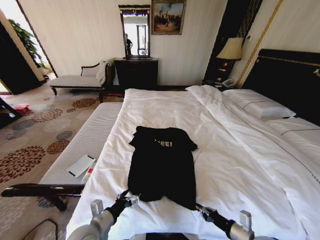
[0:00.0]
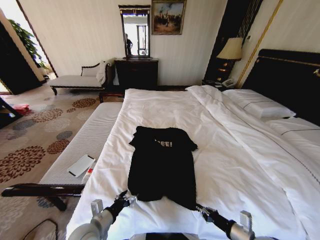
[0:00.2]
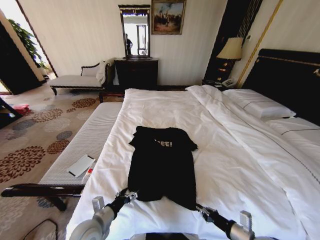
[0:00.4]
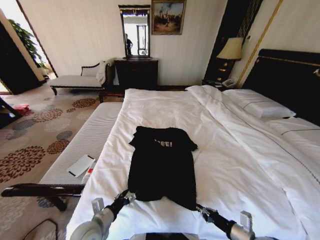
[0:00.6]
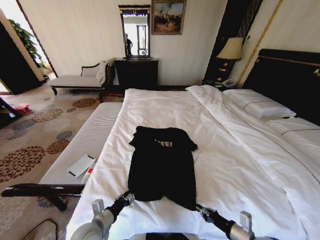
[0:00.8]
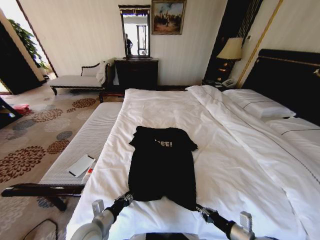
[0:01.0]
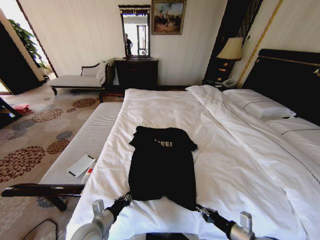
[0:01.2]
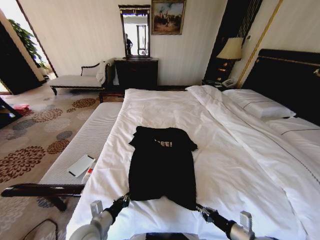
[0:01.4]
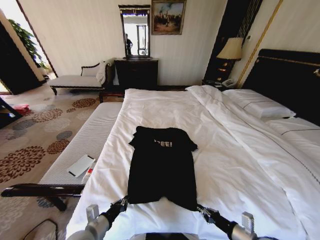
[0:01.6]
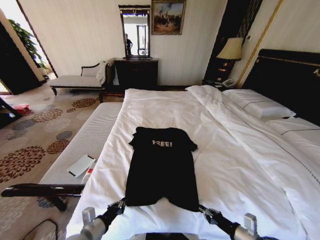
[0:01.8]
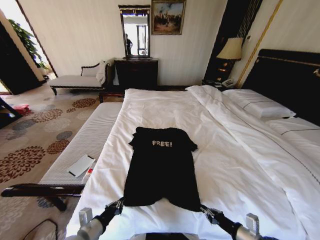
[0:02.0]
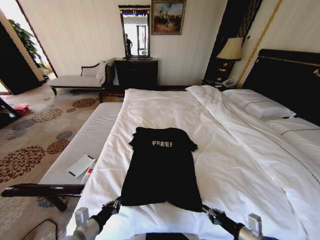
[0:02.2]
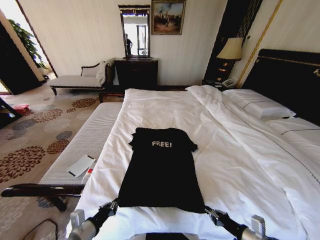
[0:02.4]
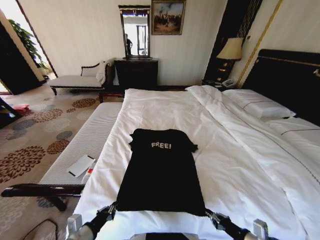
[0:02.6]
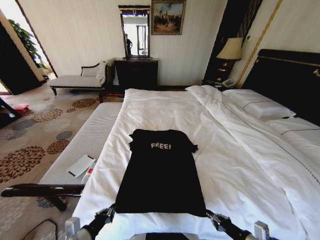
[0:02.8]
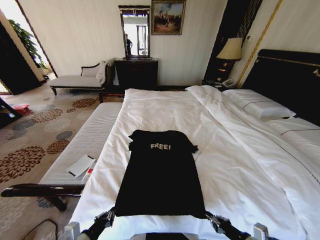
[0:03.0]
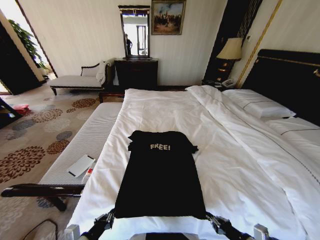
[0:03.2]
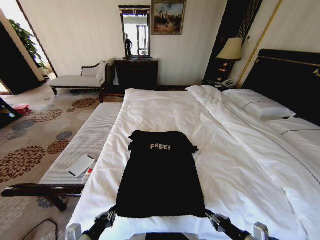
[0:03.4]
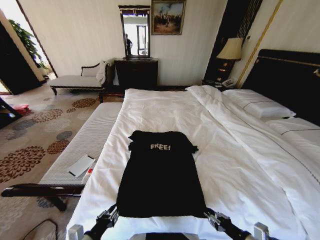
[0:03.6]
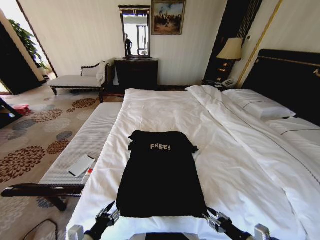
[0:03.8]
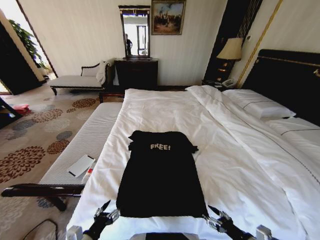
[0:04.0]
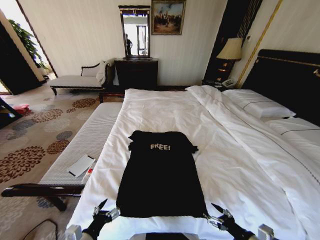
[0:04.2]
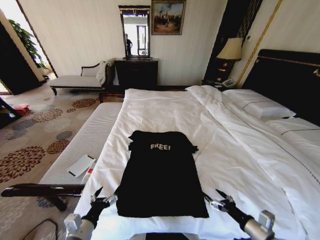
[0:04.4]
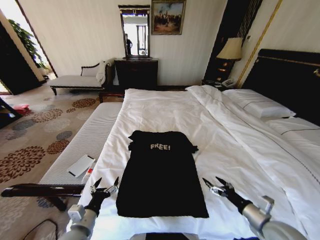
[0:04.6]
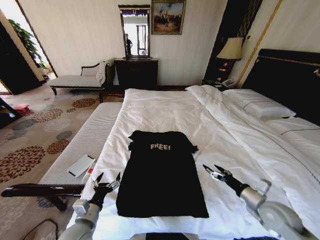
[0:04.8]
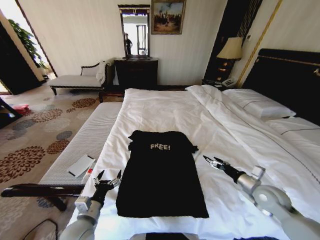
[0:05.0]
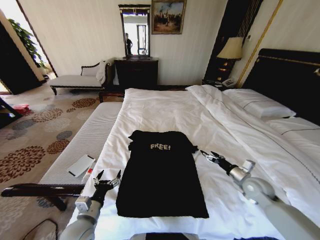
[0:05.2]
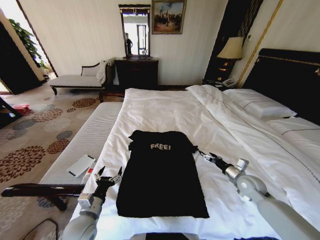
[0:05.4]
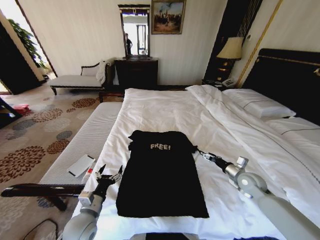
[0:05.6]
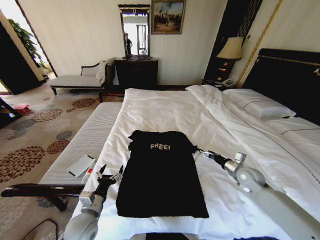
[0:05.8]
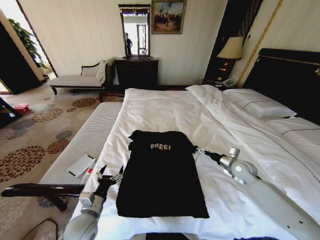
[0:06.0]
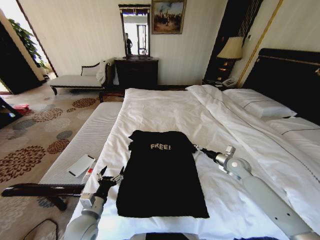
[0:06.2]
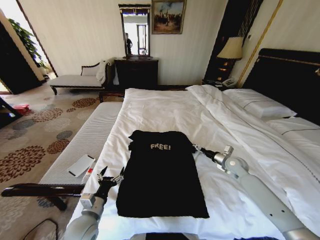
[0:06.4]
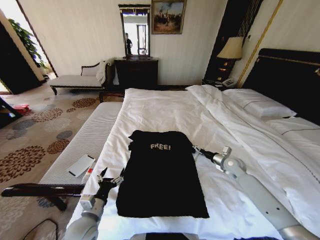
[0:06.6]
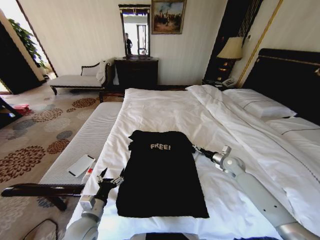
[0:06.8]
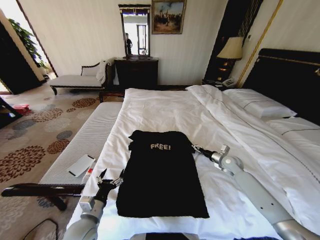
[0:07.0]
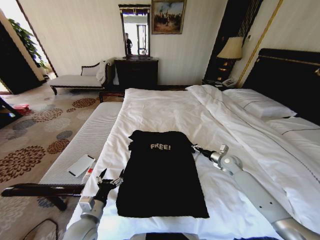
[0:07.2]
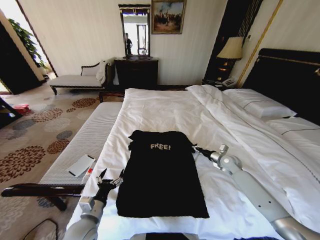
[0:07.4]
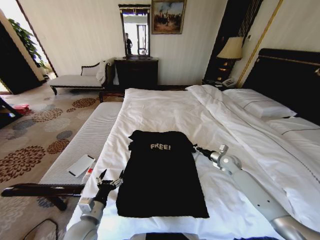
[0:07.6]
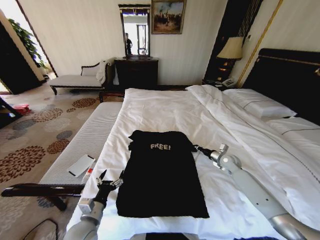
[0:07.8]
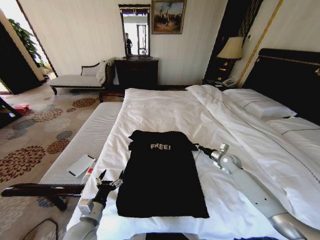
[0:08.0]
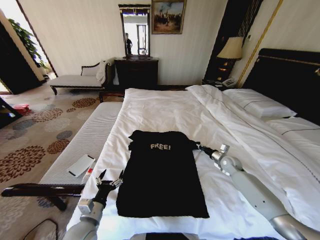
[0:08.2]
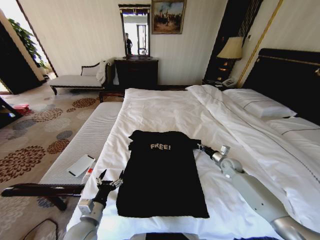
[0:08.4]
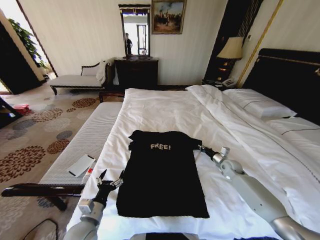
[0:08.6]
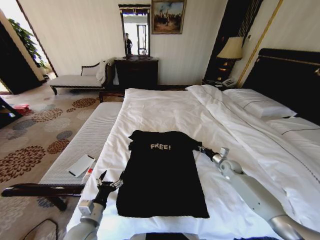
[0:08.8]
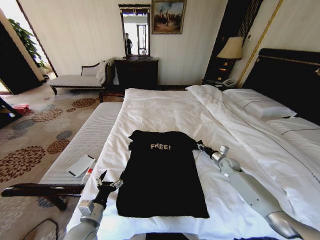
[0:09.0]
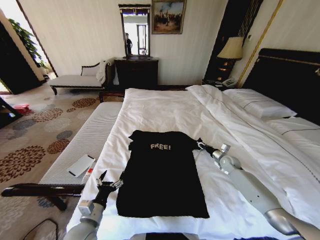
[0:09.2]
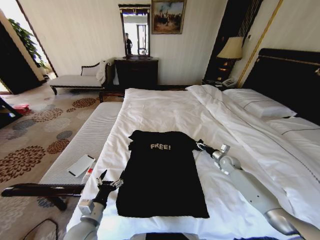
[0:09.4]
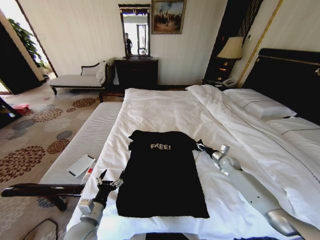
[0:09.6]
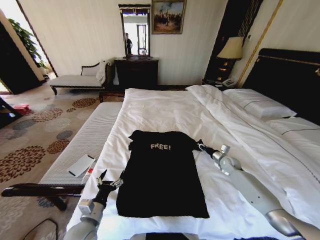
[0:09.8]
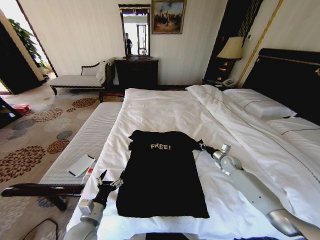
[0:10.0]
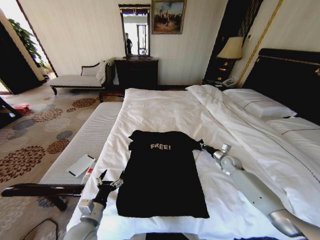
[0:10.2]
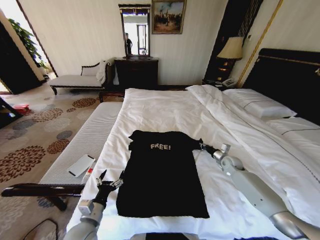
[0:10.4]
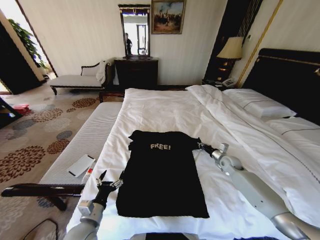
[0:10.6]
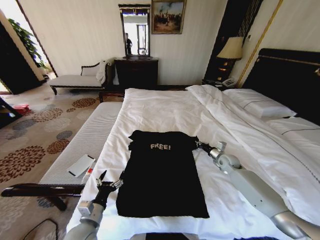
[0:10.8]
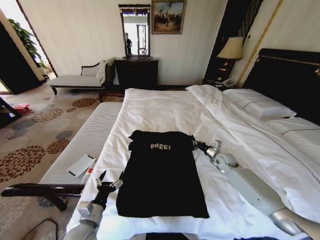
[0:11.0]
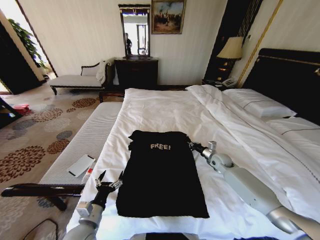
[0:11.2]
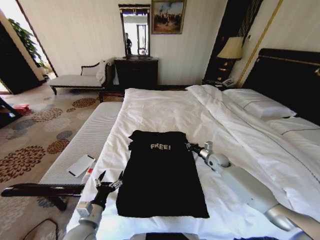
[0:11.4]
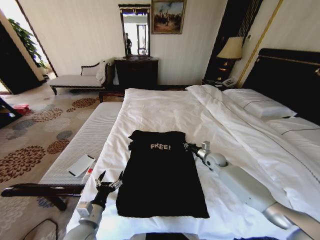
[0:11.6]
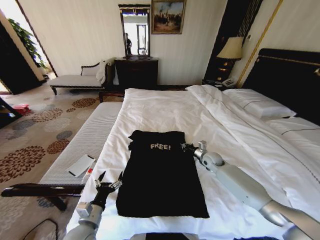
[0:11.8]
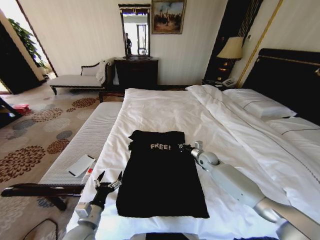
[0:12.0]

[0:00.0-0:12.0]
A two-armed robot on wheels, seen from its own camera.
Task of the whole recording: Fold the clothes on the bed.
0:00.0 to 0:01.6: The left gripper closes up.
0:01.6 to 0:03.0: The left gripper goes about 5 cm backward.
0:03.0 to 0:04.4: The left gripper opens its fingers. Meanwhile the right gripper opens up.
0:04.4 to 0:06.0: The left gripper is displaced forward by about 10 cm. Meanwhile the right gripper moves forward, roughly 30 cm.
0:06.0 to 0:07.6: The right gripper goes about 5 cm forward, and closes up.
0:09.0 to 0:10.4: The right gripper opens, then closes again.
0:10.4 to 0:12.0: The right gripper moves to the left, some 15 cm.

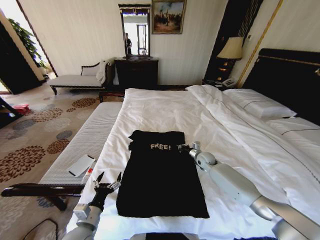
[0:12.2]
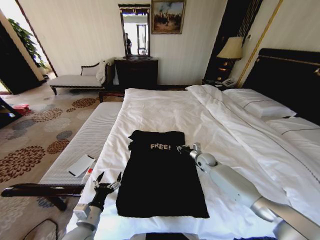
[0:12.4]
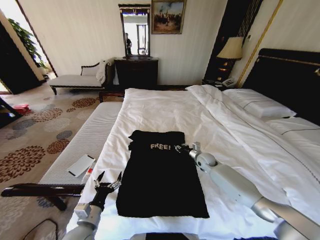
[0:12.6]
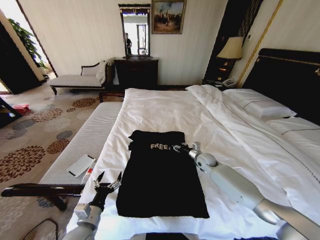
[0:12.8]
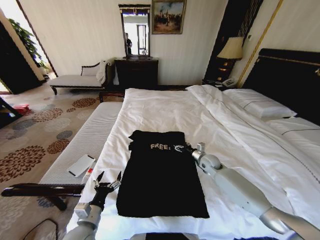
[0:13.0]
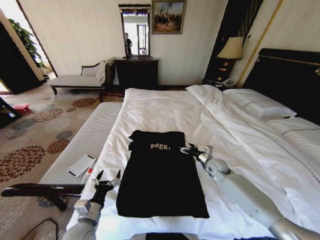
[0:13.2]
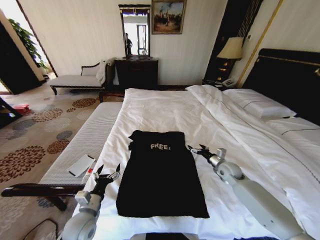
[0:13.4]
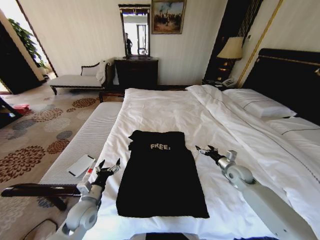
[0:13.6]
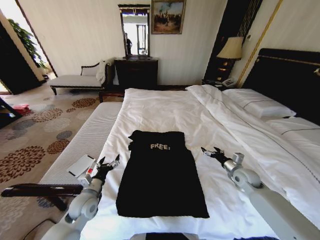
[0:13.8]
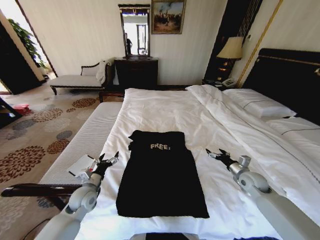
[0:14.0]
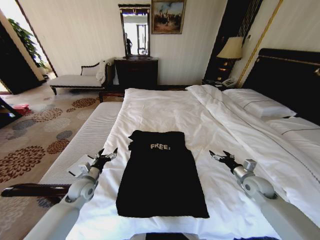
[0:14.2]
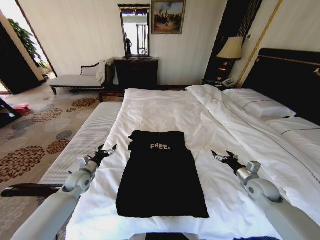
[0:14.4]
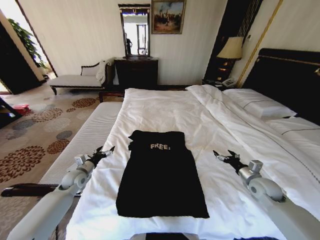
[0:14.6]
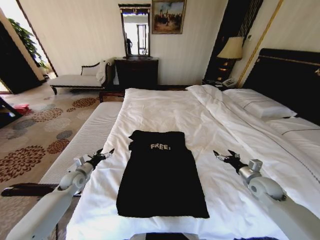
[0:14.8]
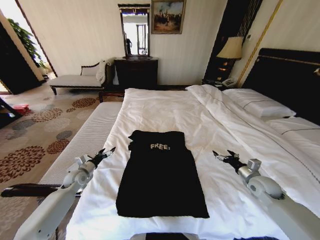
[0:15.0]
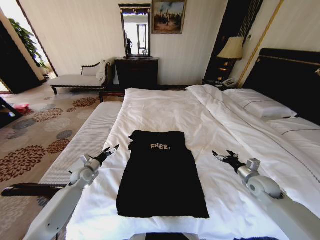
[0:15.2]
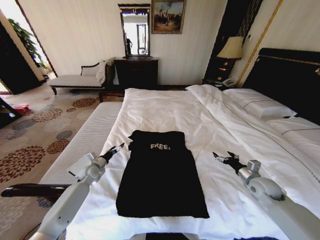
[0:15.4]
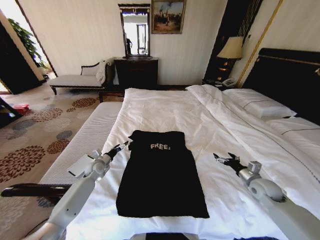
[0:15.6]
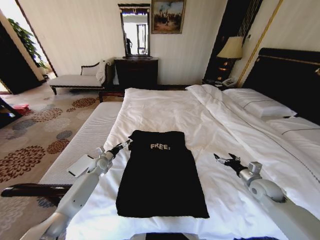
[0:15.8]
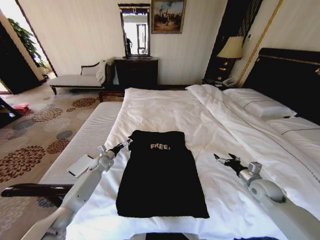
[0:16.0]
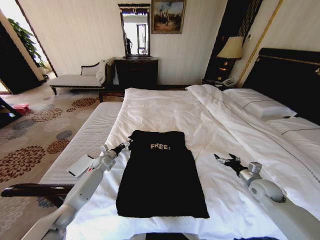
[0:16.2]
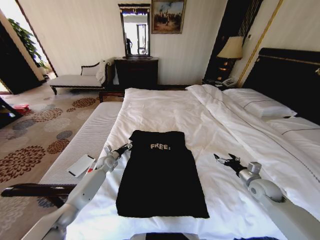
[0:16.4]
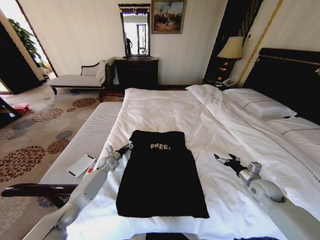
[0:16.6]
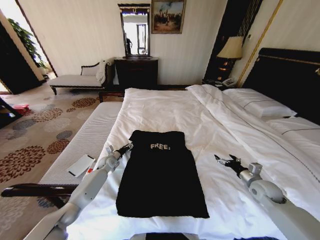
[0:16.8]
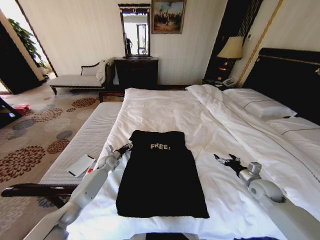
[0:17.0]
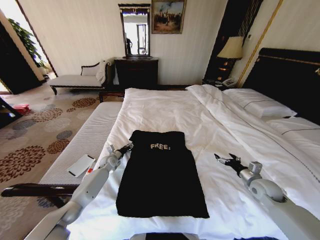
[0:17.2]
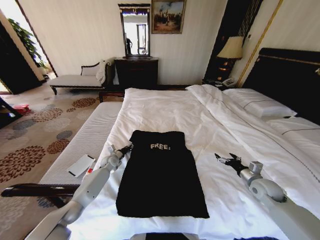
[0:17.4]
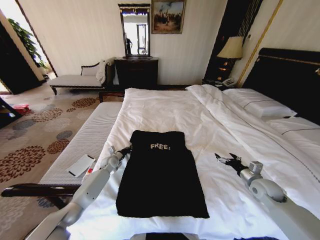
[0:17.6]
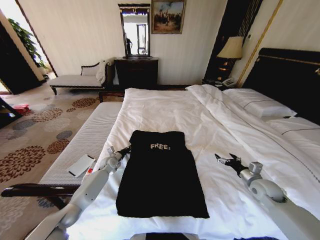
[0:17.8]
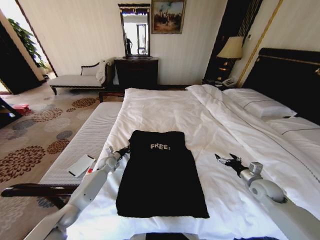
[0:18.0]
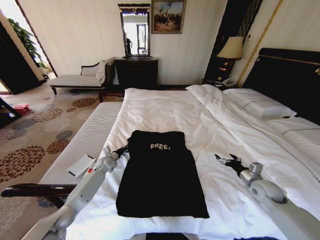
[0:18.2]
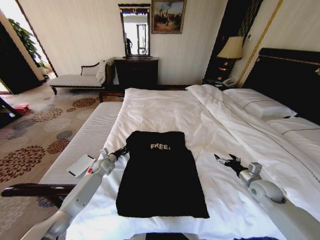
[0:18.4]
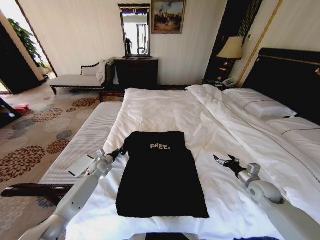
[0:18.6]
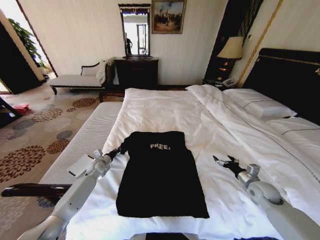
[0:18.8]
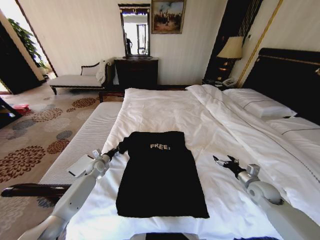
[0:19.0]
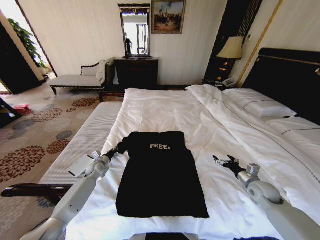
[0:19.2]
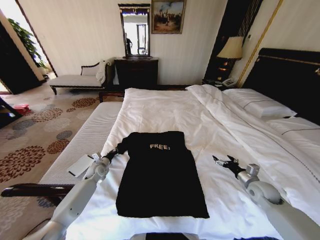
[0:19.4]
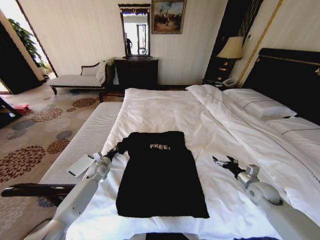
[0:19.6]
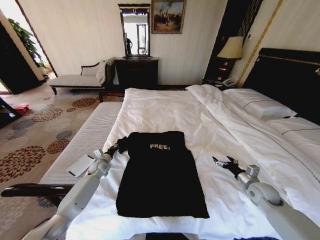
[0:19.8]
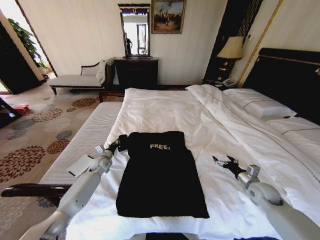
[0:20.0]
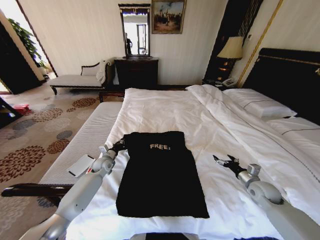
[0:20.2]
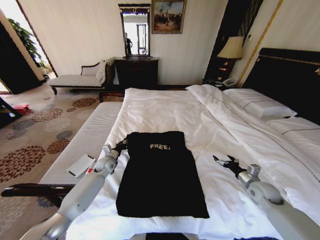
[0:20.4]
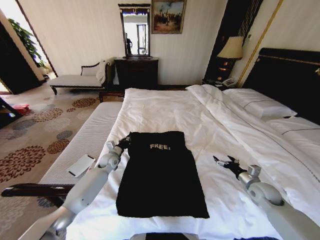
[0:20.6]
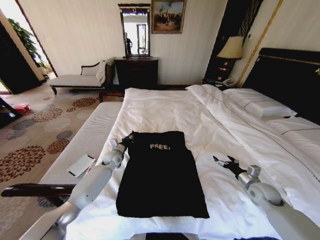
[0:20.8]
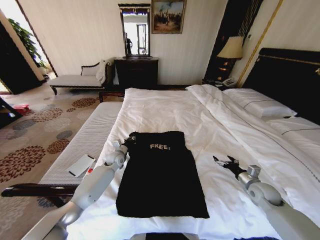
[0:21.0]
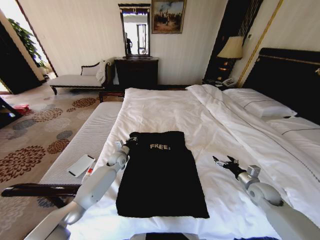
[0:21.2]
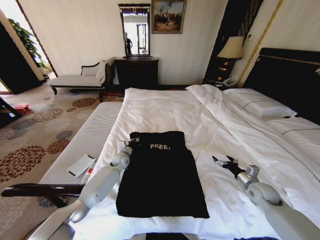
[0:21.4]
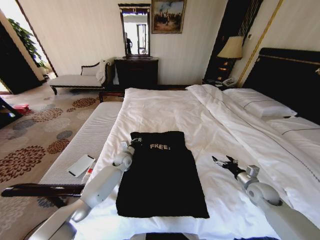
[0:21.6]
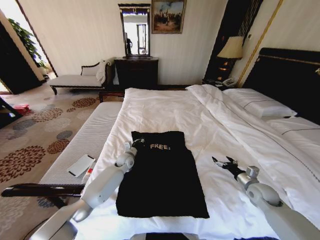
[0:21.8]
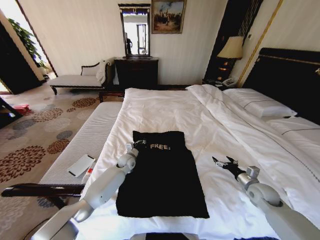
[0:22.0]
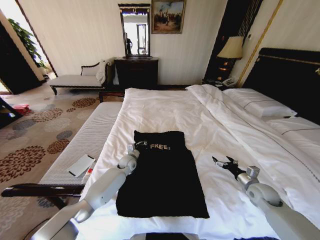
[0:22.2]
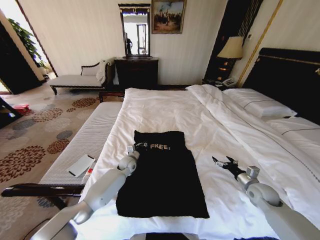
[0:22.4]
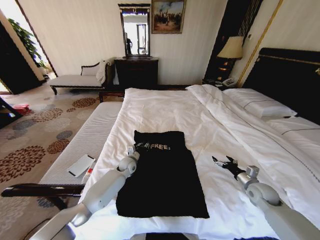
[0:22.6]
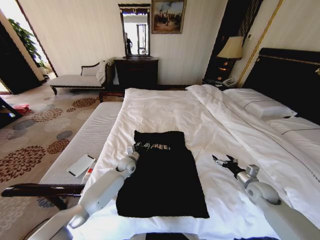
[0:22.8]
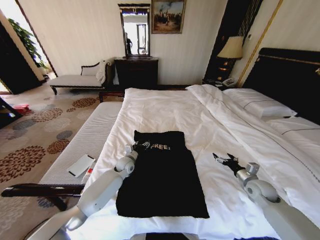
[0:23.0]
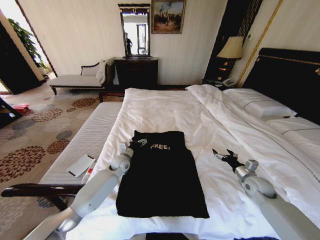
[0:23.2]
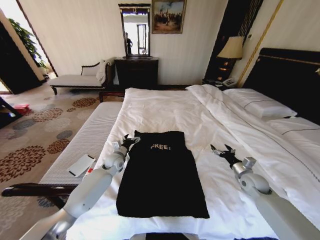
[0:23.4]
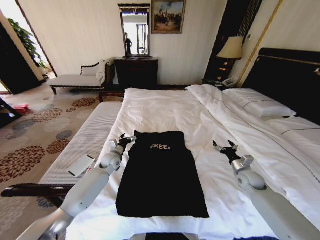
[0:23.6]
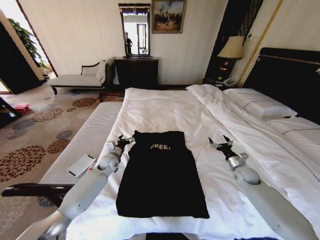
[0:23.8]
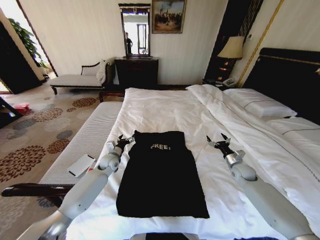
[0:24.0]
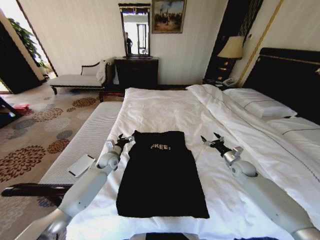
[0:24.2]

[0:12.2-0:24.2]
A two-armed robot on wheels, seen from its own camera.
Task of the whole recording: Fold the clothes on the bed.
0:12.2 to 0:13.8: The left gripper is displaced forward by roughly 10 cm; the right gripper is displaced to the right and backward by roughly 20 cm, and opens its fingers.
0:13.8 to 0:15.2: The left gripper moves forward and to the left, approximately 15 cm, while the right gripper ends up about 5 cm from where it was.
0:15.2 to 0:16.6: The left gripper is displaced forward and to the right by approximately 15 cm, and closes.
0:16.6 to 0:18.2: The left gripper closes up.
0:18.2 to 0:19.8: The grippers stay close to where they were, moving slightly.
0:19.8 to 0:21.2: The left gripper moves to the right, approximately 10 cm.
0:21.2 to 0:22.6: The left gripper is displaced to the right by about 5 cm.
0:22.6 to 0:24.2: The left gripper travels to the left by roughly 10 cm, and opens up. The right gripper is displaced forward by roughly 10 cm.
